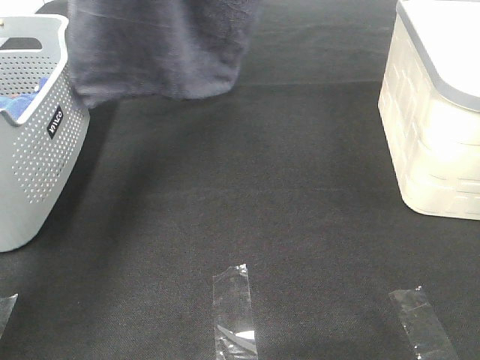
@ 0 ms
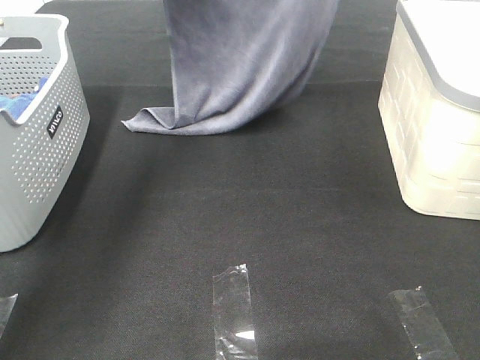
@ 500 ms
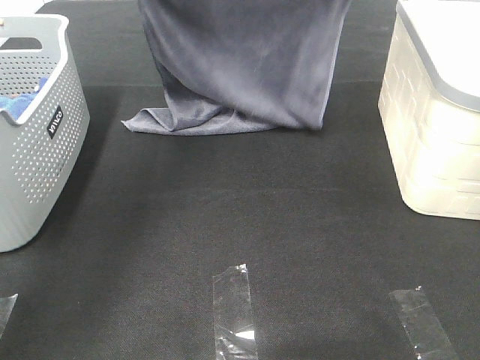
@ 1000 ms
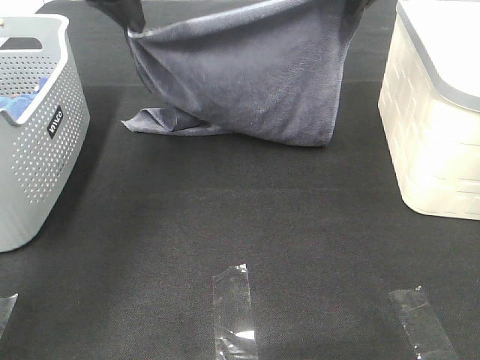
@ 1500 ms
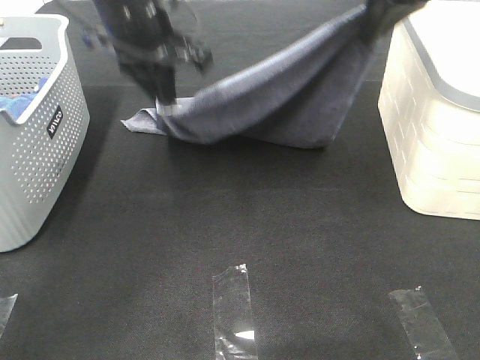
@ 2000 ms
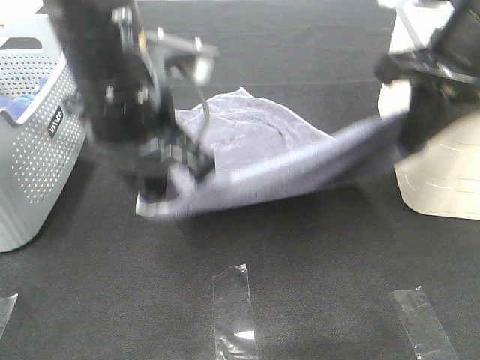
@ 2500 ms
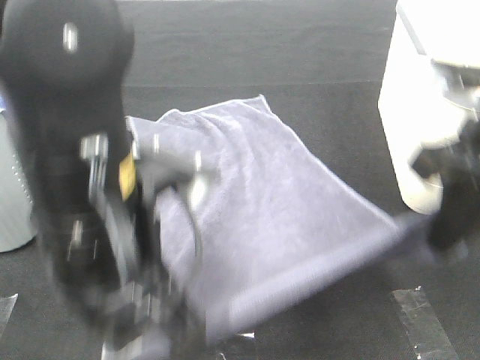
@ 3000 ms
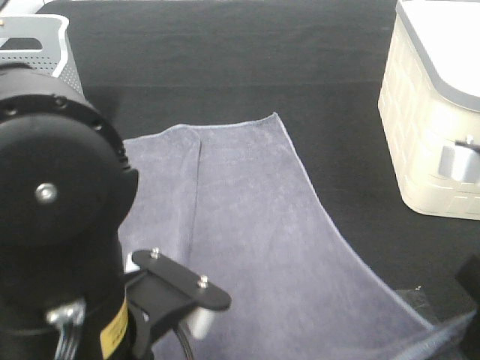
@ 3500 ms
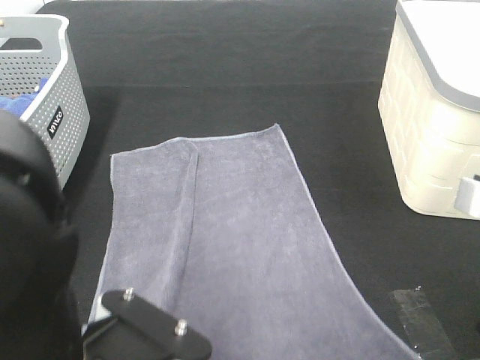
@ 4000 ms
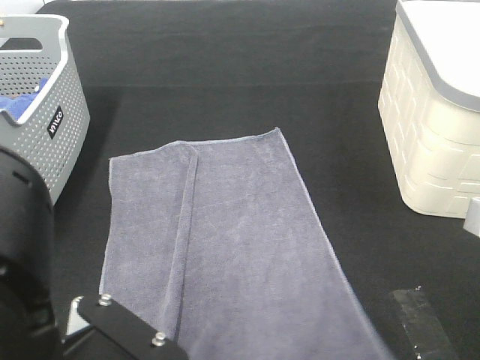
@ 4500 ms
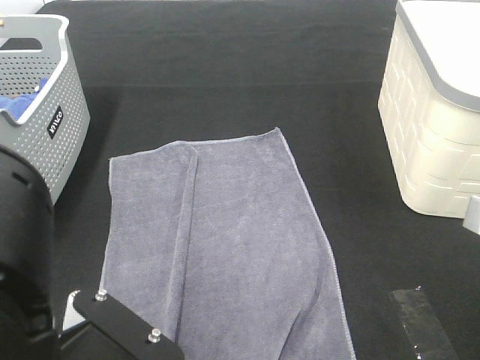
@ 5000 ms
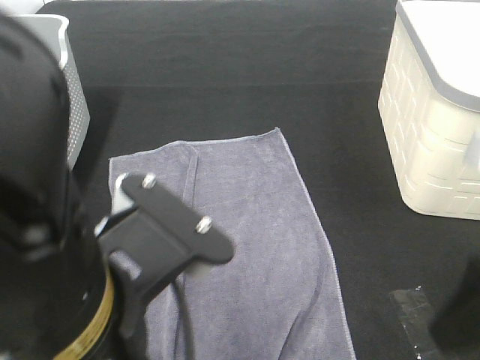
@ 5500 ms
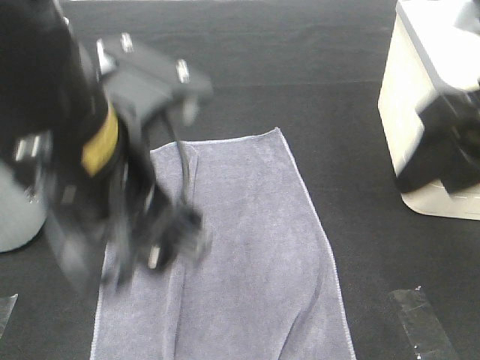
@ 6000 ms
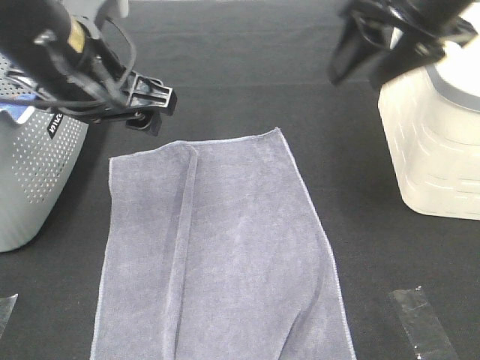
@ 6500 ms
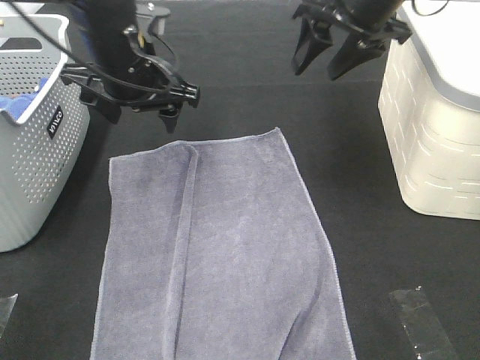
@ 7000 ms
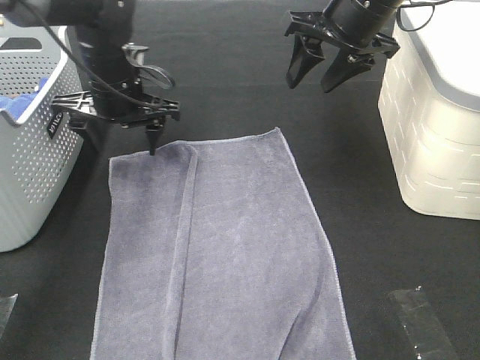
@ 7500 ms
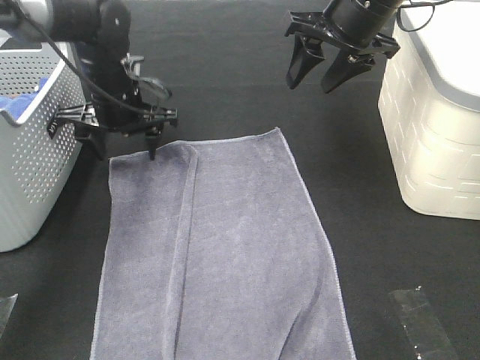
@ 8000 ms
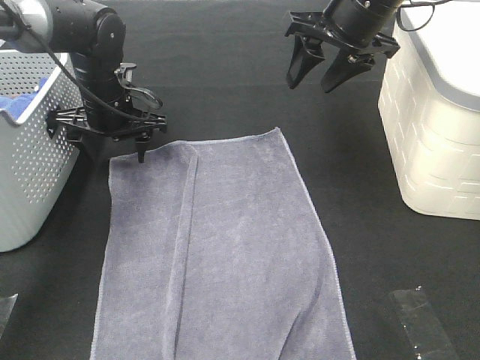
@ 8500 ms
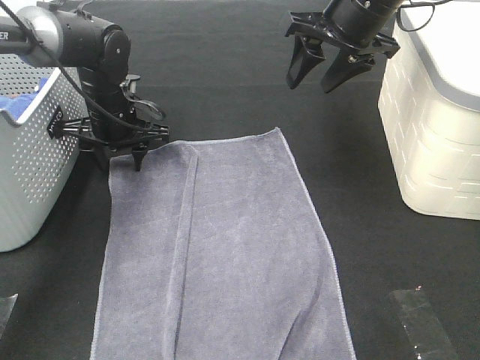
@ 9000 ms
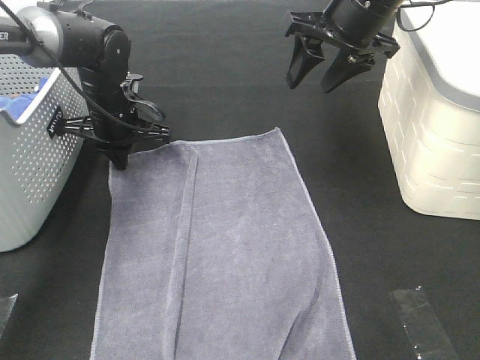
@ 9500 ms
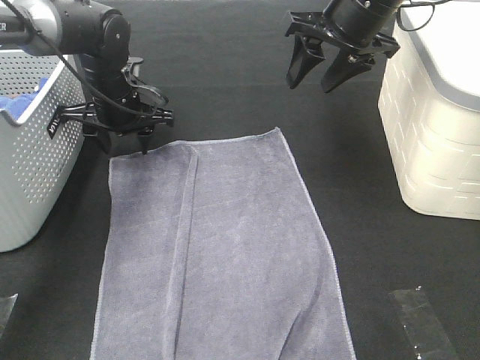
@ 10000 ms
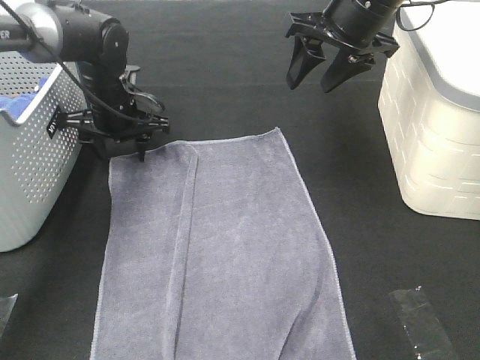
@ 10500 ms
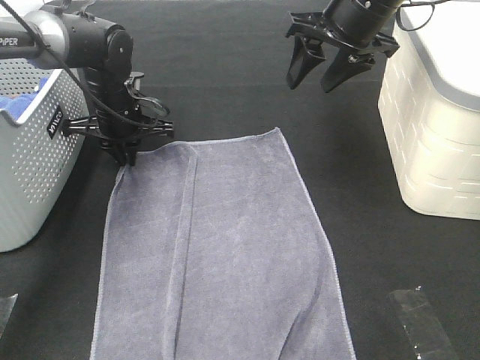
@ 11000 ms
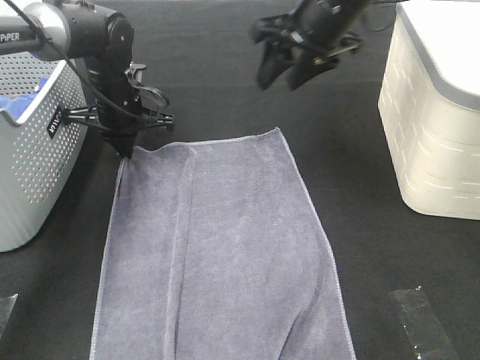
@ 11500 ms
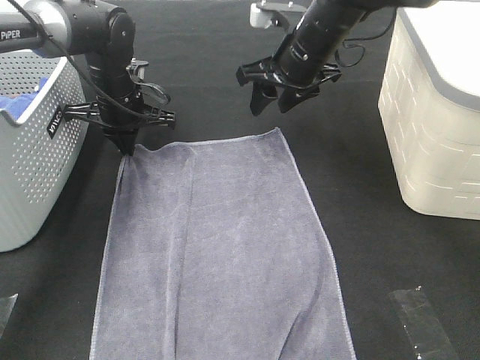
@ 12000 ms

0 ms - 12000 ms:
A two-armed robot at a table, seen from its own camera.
Task of the whole recording: Remove the towel and place it.
Step, 0 ms - 9000 ms: Left hand:adjust the gray towel.
Step, 0 ms - 9000 ms: Right hand:adjust the gray towel.
0 ms - 2000 ms: Both grippers travel together downward and backward, approximately 15 cm.
2000 ms - 4000 ms: The right gripper heads backward and downward, covering some 30 cm; the left gripper is displaced backward by approximately 35 cm.
4000 ms - 6000 ms: The grippers both shift forward and upward by about 15 cm. The left gripper opens. The right gripper opens its fingers.
6000 ms - 8000 ms: The right gripper shifts roughly 20 cm forward; the left gripper shifts roughly 30 cm forward and downward.
8000 ms - 10000 ms: The left gripper closes, then opens again.
10000 ms - 12000 ms: The left gripper closes. The right gripper moves downward and to the left, approximately 10 cm.

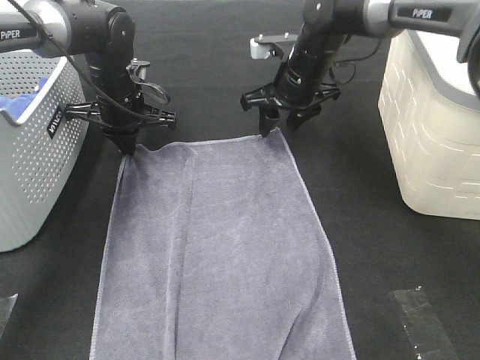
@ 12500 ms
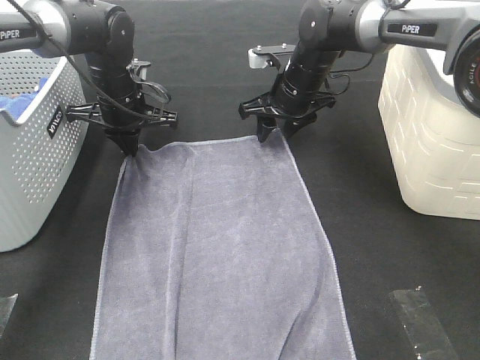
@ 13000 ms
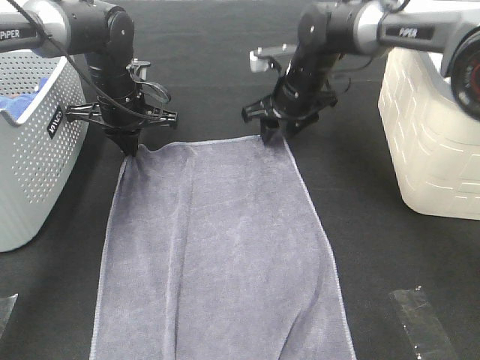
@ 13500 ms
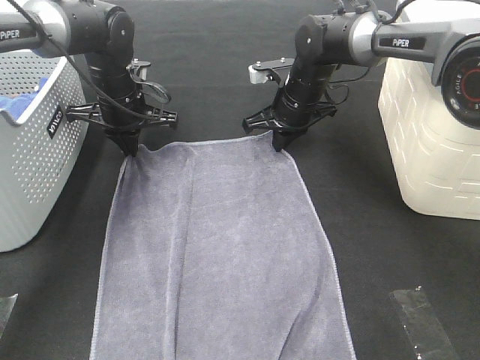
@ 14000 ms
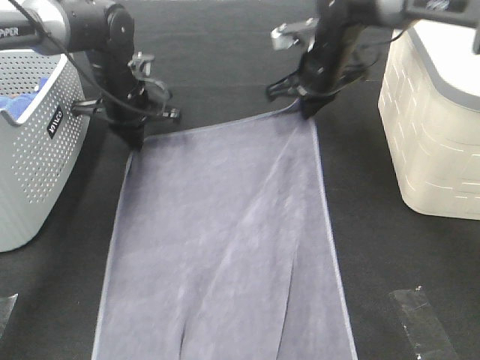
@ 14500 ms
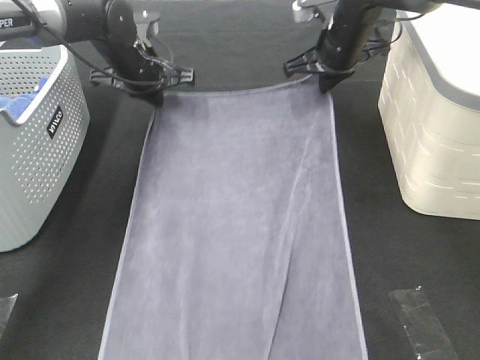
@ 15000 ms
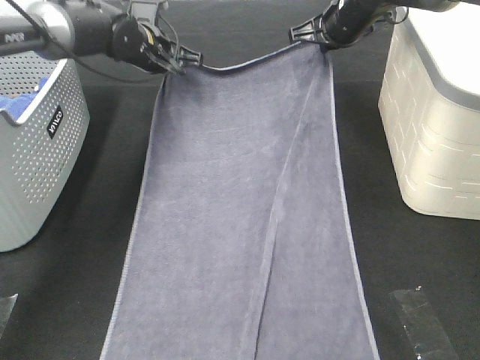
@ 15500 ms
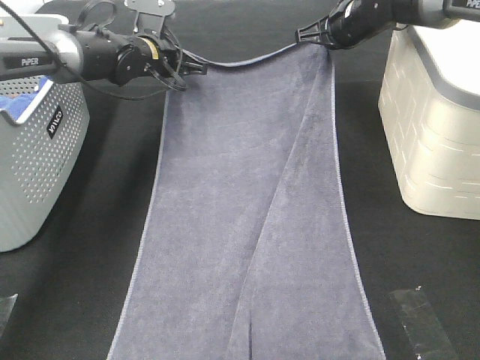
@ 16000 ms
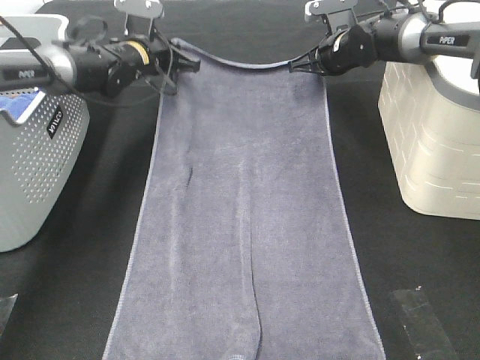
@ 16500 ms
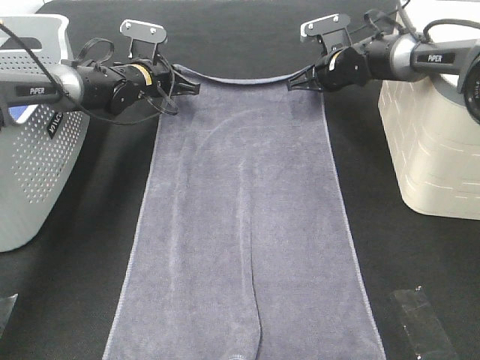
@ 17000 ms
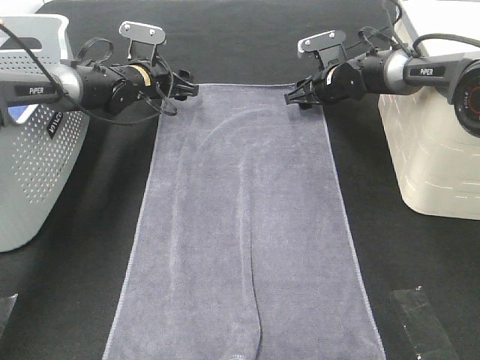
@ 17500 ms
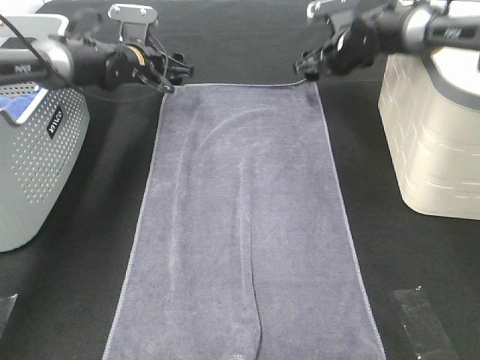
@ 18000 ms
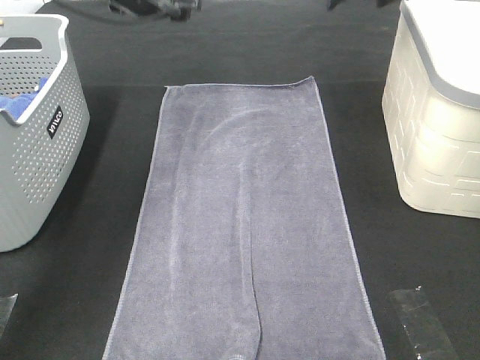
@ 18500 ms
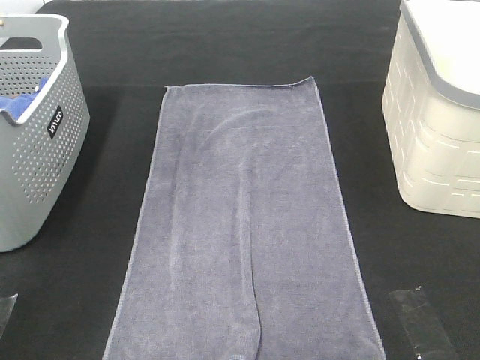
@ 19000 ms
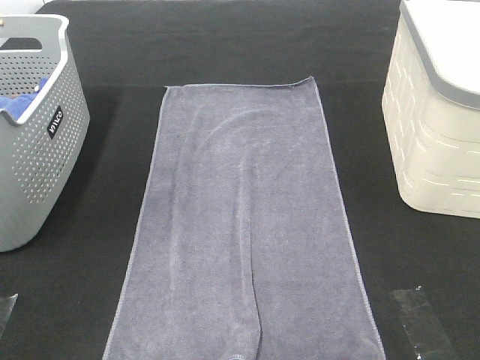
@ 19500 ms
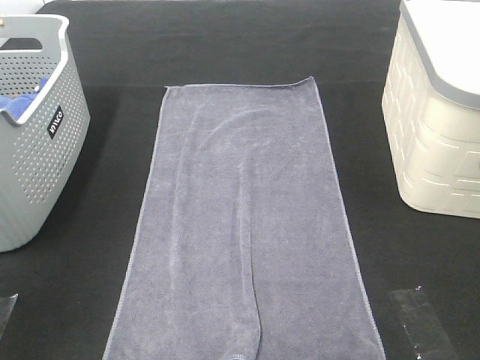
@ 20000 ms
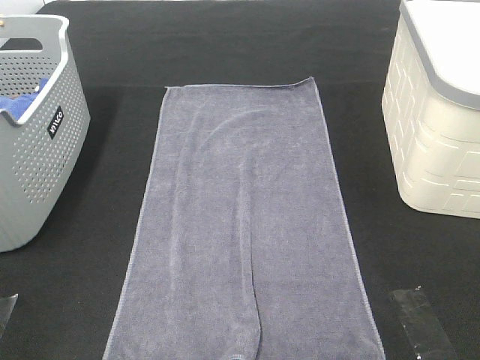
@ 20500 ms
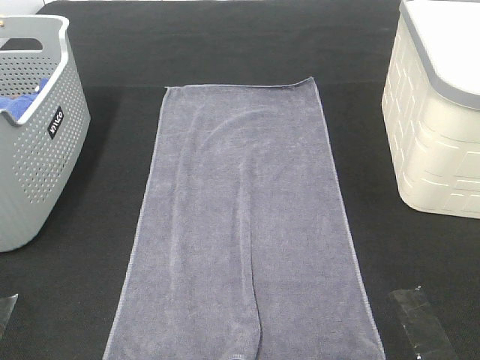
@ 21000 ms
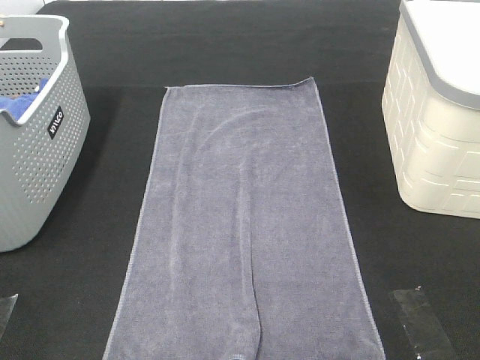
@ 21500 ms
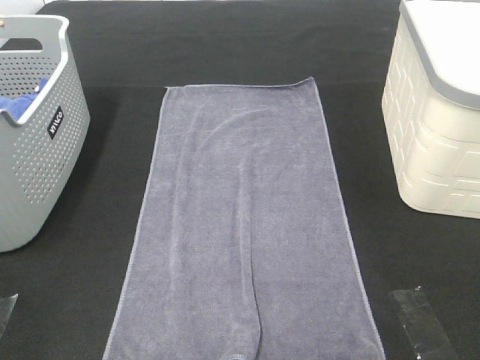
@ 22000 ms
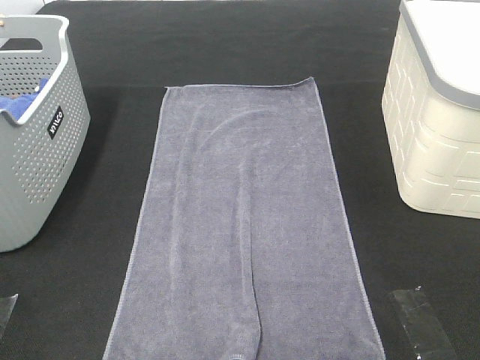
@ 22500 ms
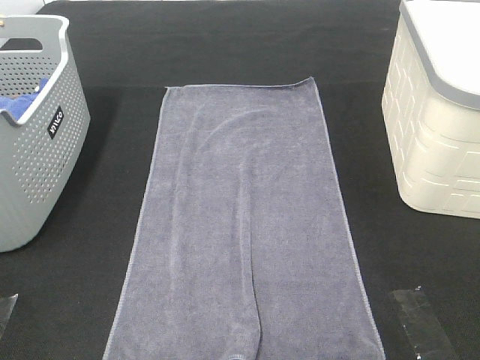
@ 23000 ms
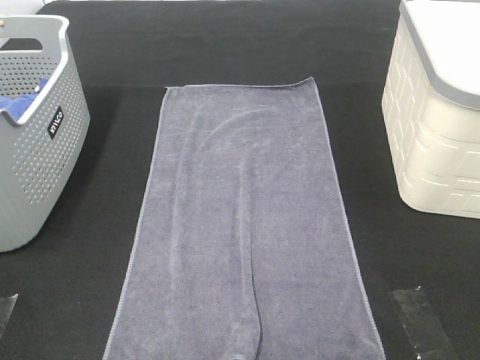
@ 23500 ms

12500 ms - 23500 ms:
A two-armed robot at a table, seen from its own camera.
Task of the whole recording: Remove the towel and place it.
12500 ms - 14500 ms: The right gripper closes its fingers.
14500 ms - 16000 ms: The two grippers go roughly 5 cm forward.
16000 ms - 18000 ms: The left gripper opens; the right gripper opens up.
18000 ms - 20000 ms: Both grippers travel together backward and upward, approximately 50 cm.

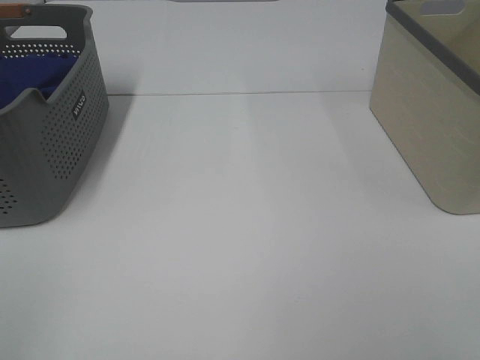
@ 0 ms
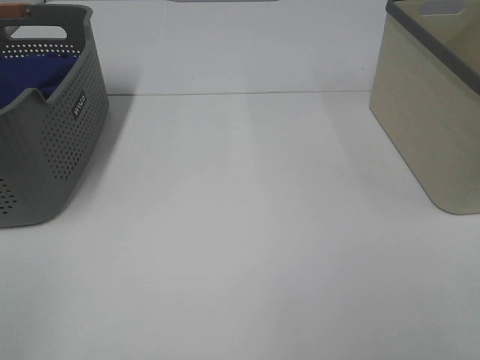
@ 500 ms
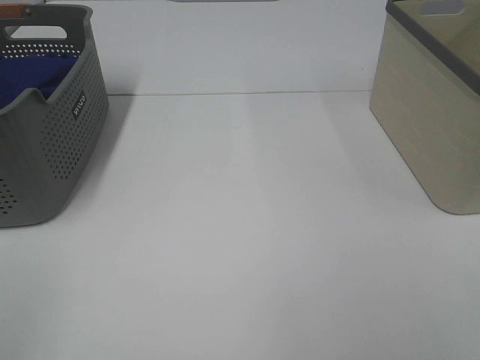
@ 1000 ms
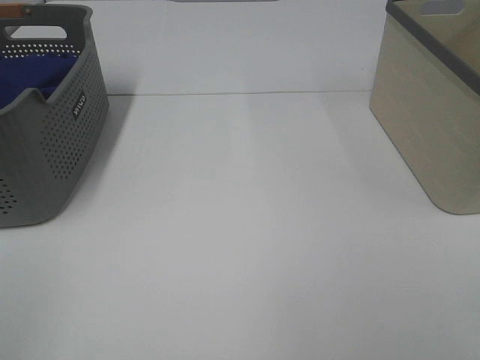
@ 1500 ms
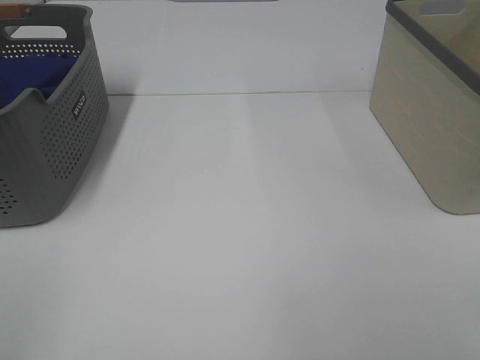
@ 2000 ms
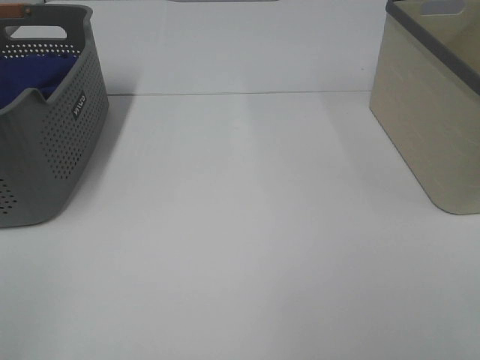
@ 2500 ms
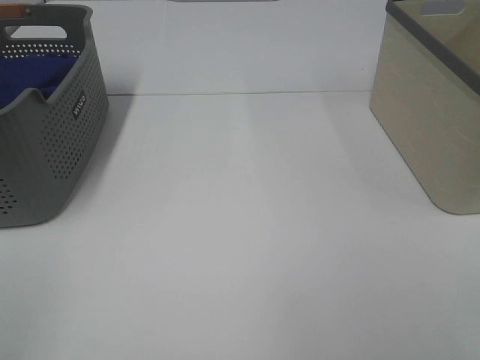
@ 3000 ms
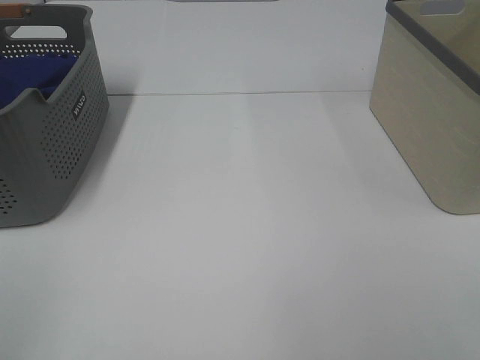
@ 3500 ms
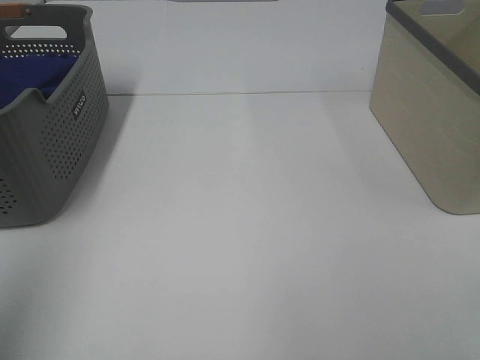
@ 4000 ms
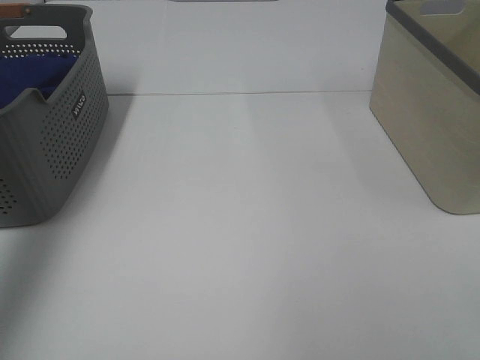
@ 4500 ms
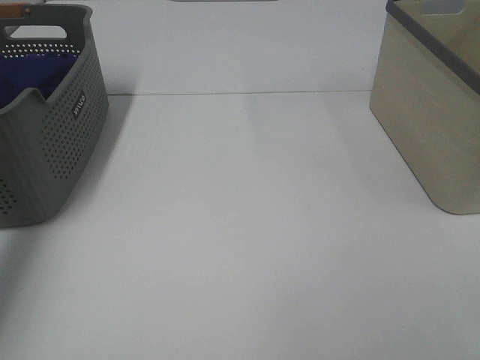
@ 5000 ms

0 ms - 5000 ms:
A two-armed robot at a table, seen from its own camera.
Task of the whole recording: Remove the towel and place it.
0 ms - 2500 ms: The two grippers keep their place.
2500 ms - 5000 ms: The left gripper shifts approximately 50 cm forward.
